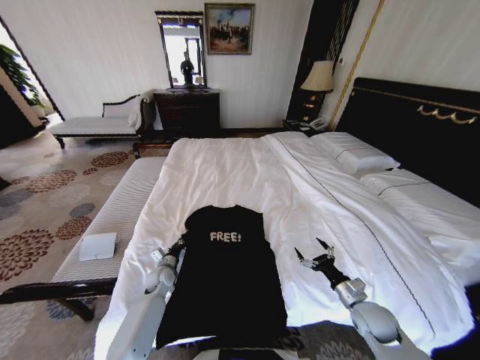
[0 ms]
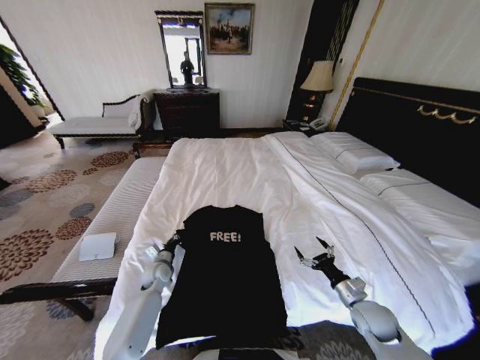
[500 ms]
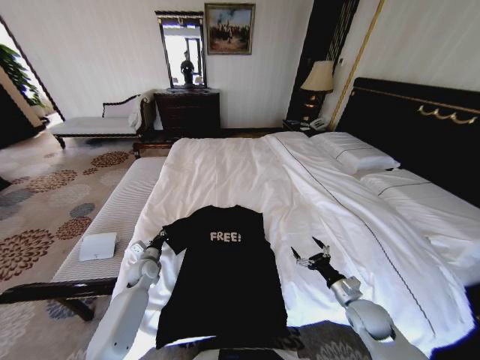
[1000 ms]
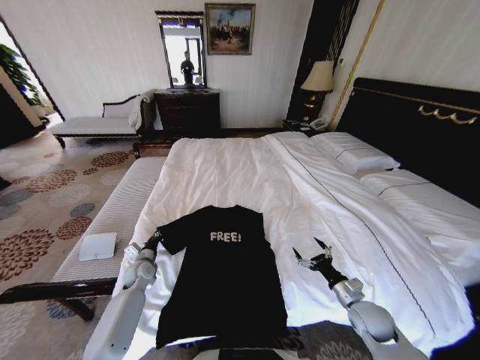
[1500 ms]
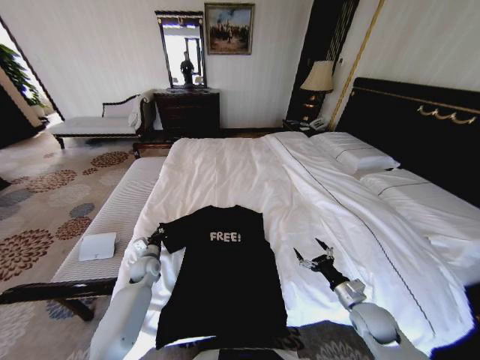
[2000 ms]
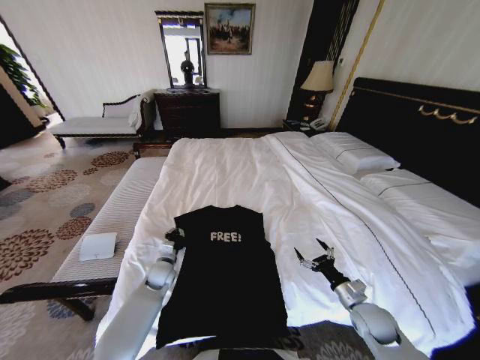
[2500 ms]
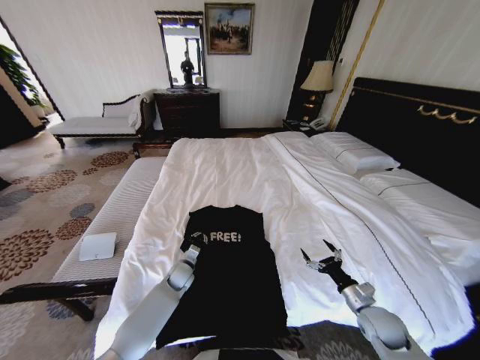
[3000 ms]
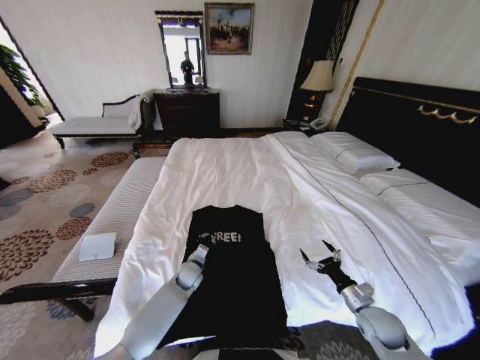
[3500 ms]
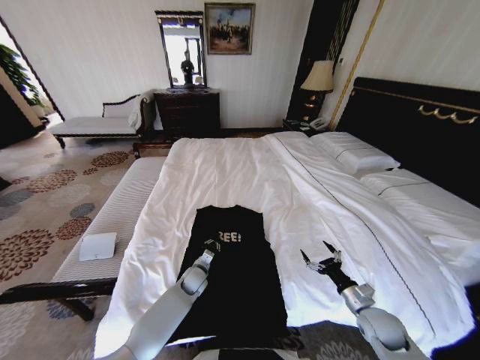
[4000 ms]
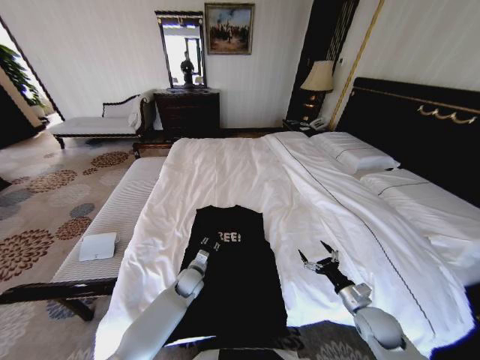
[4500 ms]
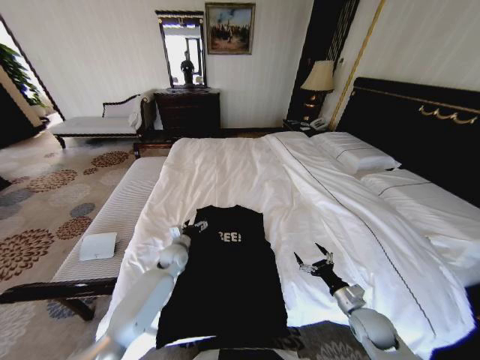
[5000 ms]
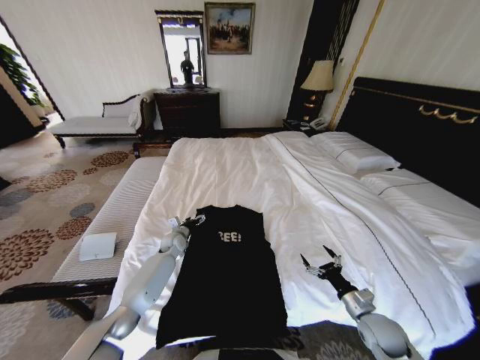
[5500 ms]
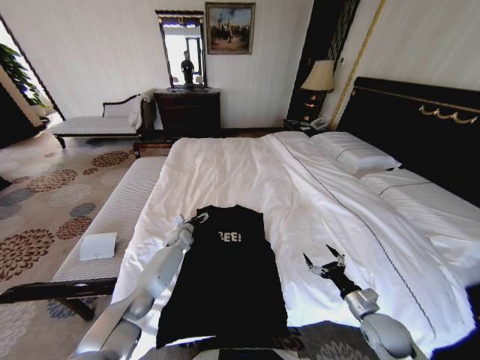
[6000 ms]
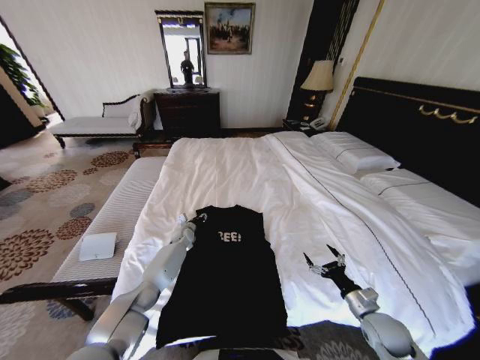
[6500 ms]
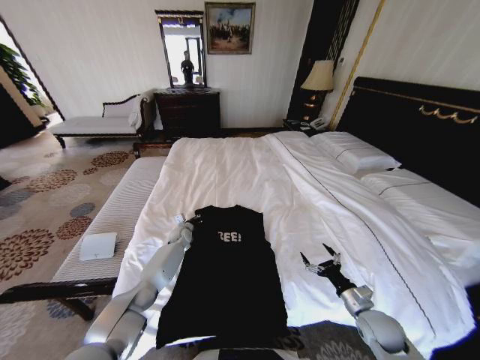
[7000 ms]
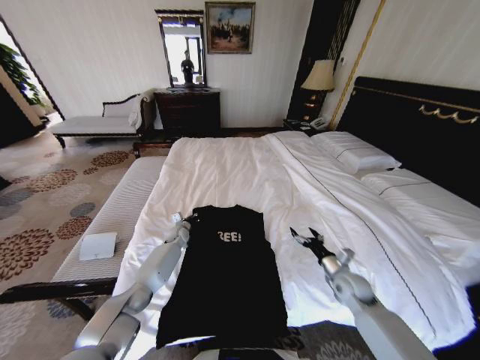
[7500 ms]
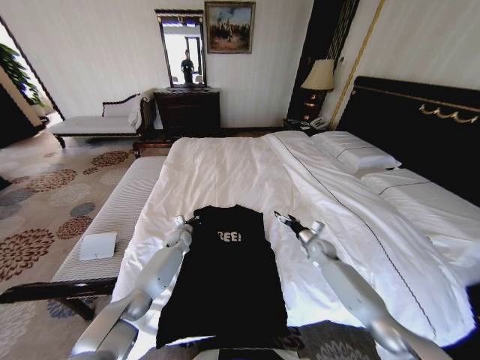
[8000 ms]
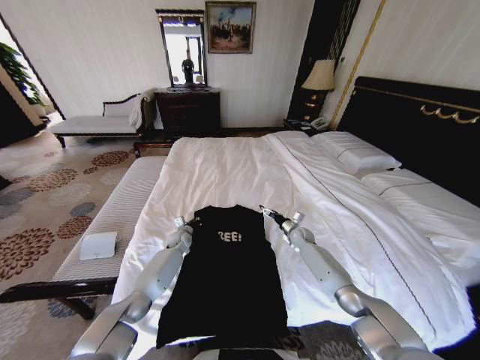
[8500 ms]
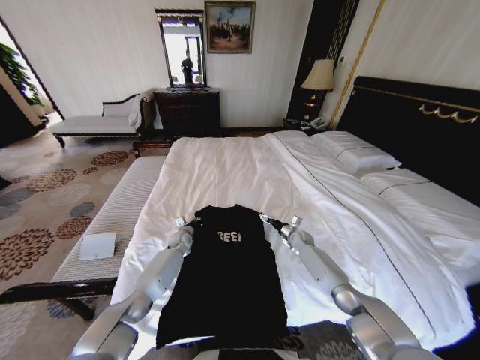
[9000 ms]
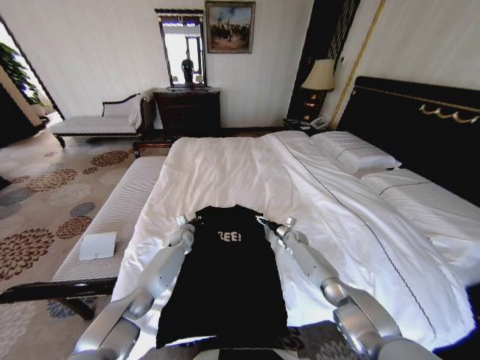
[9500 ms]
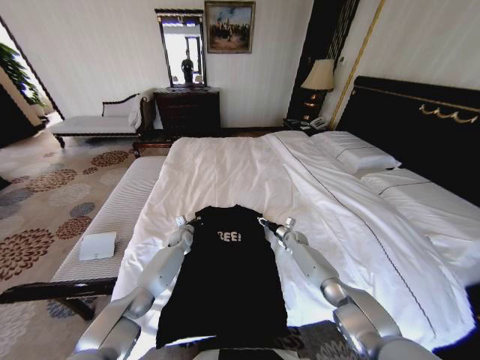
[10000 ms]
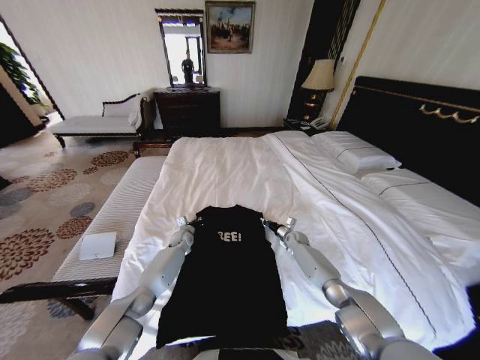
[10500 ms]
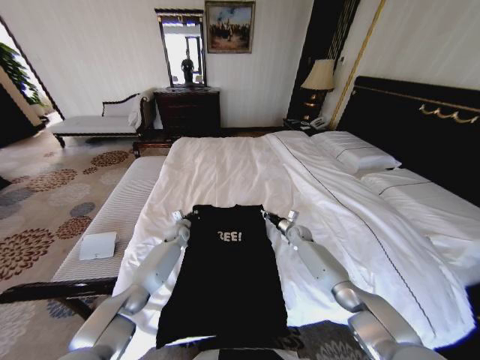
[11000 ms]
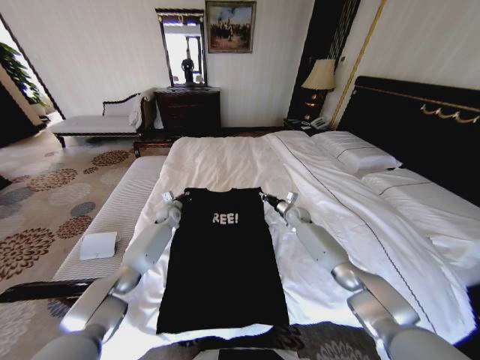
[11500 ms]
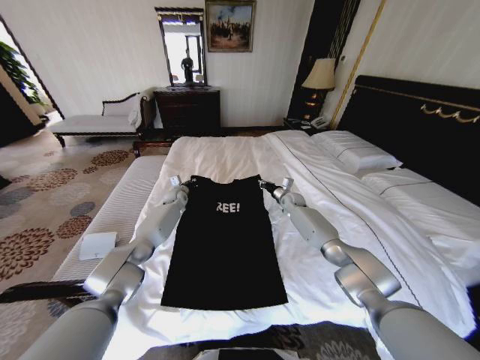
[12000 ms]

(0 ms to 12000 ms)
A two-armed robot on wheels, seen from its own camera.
Task of the whole recording: Fold the clothes on the bed.
0 ms - 2000 ms: The left gripper heads to the left, covering about 5 cm.
2000 ms - 4000 ms: The left gripper is displaced to the right by approximately 15 cm.
4000 ms - 6000 ms: The left gripper travels forward and to the left by roughly 20 cm, and opens.
6000 ms - 8000 ms: The right gripper heads forward, covering some 25 cm. The left gripper closes up.
8000 ms - 10000 ms: The right gripper is displaced forward and downward by roughly 10 cm, and closes its fingers.
10000 ms - 12000 ms: Both grippers travel together upward and forward, about 20 cm. The right gripper closes.

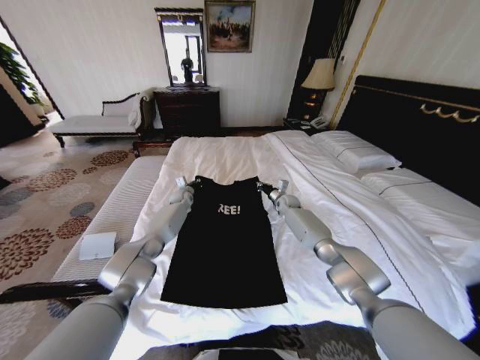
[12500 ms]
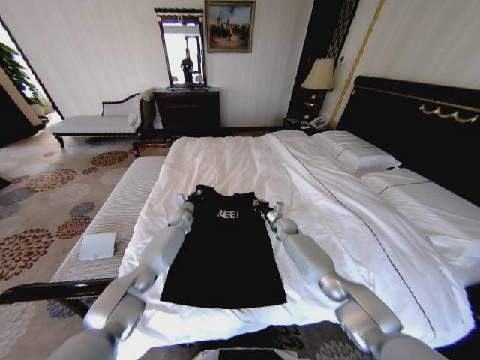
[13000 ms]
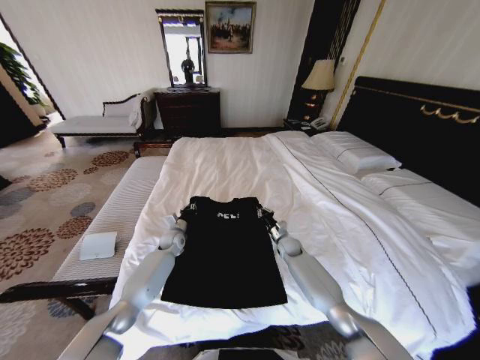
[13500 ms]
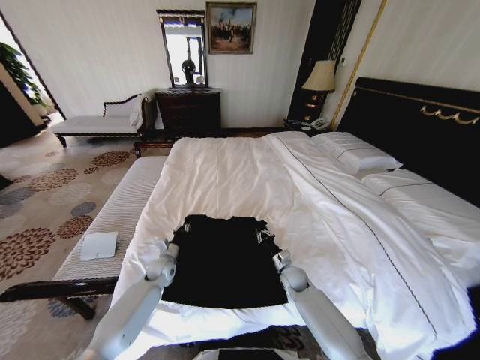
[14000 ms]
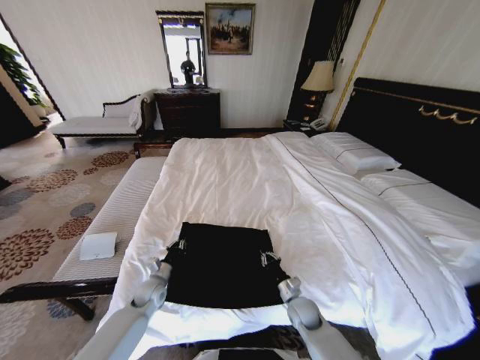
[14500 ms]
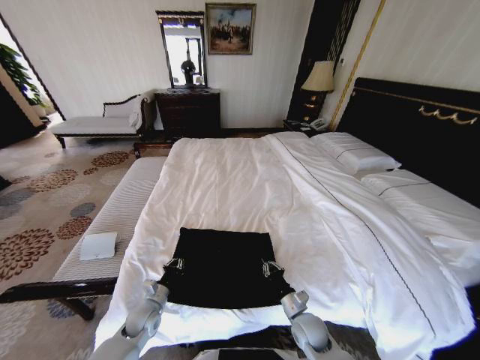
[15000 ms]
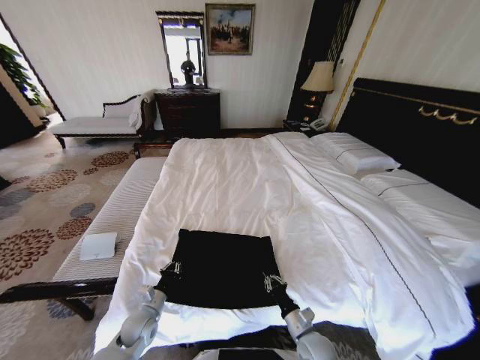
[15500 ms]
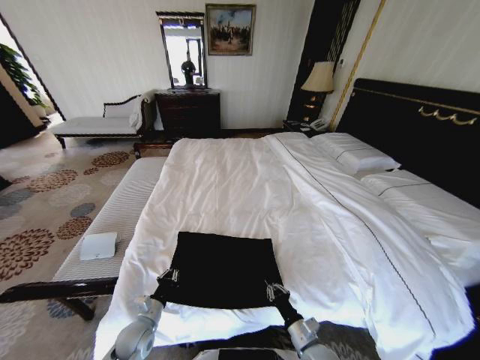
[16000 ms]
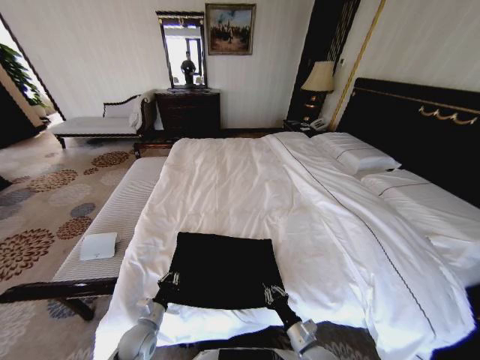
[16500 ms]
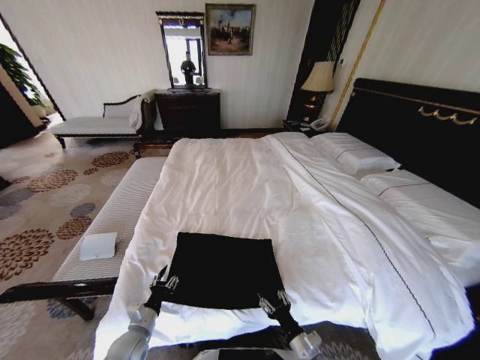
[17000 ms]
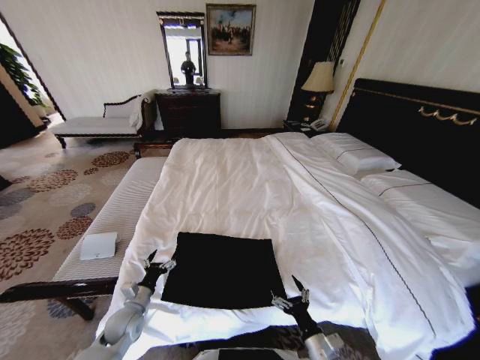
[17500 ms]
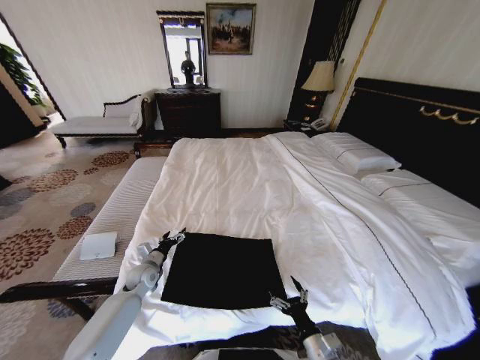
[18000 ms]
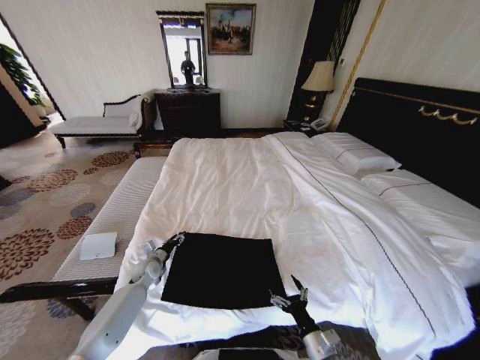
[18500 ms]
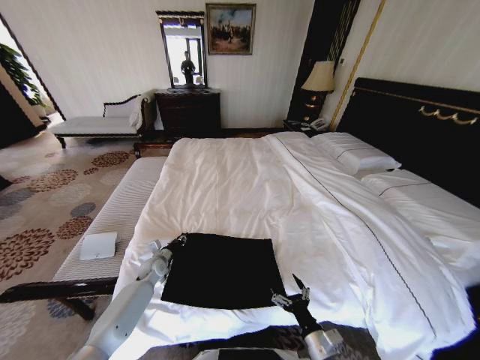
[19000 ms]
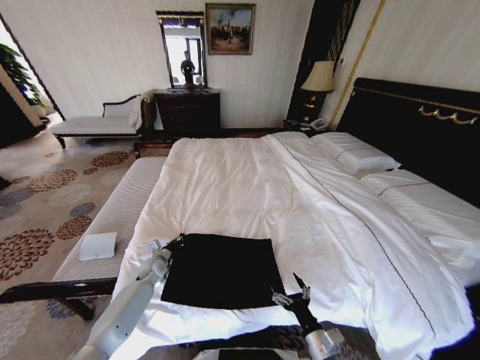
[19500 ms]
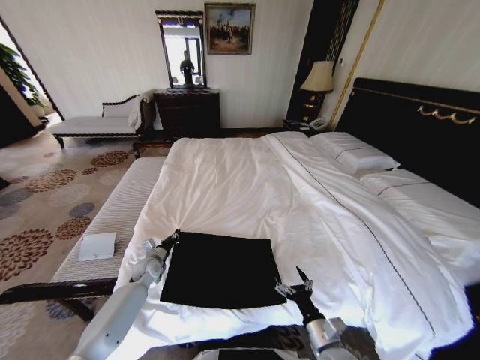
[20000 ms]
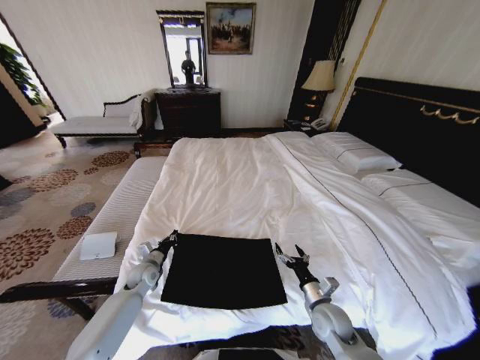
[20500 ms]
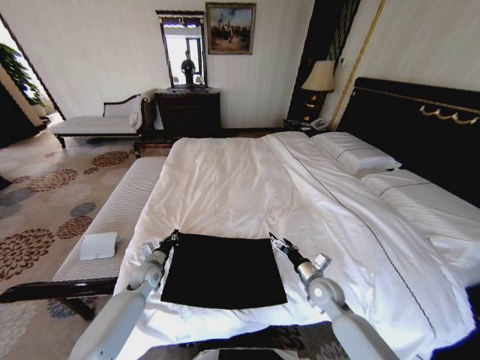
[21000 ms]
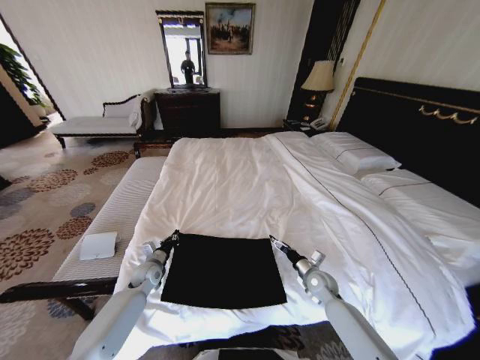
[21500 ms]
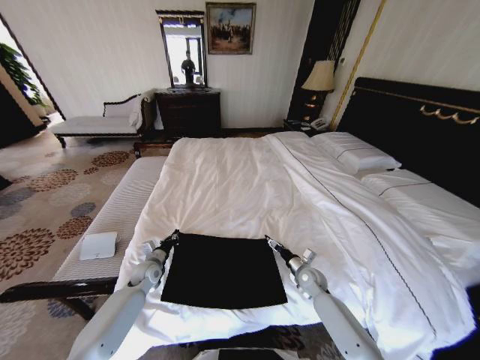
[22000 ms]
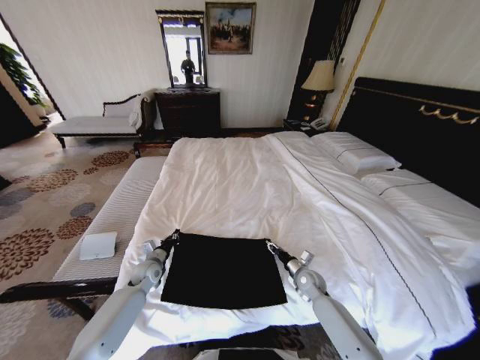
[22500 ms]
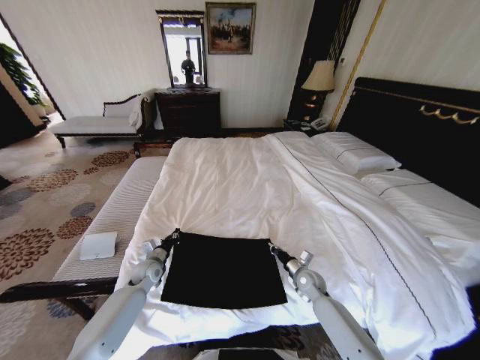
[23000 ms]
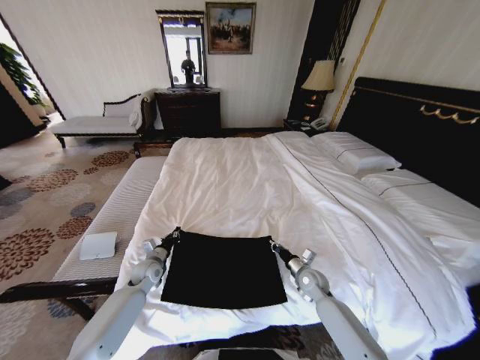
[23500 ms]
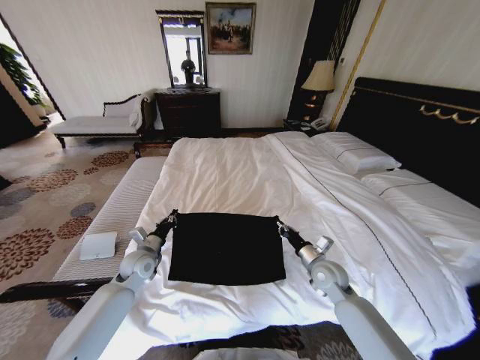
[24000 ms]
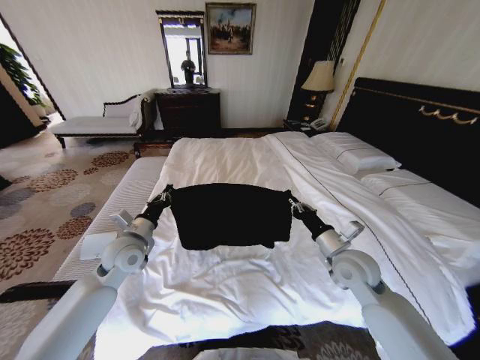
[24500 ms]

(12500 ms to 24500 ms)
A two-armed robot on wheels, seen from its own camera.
Task of the whole recording: Fold the clothes on the bed.
12500 ms - 14500 ms: Both grippers travel together backward, some 35 cm.
14500 ms - 16500 ms: Both grippers travel together backward, some 15 cm.
16500 ms - 18500 ms: The left gripper is displaced forward by some 20 cm, and opens its fingers. The right gripper shifts by roughly 5 cm, and opens.
18500 ms - 20500 ms: The left gripper closes up, while the right gripper goes about 10 cm forward.
20500 ms - 22500 ms: The right gripper shifts roughly 15 cm forward and downward, and closes.
22500 ms - 24500 ms: Both grippers travel together upward, about 20 cm. The right gripper closes up.

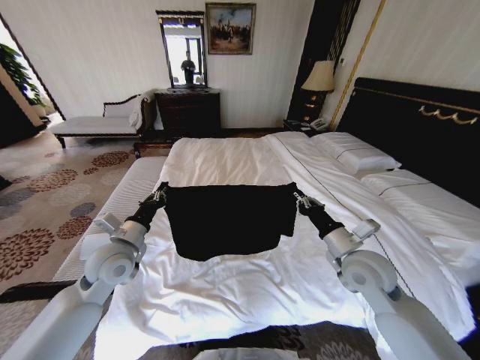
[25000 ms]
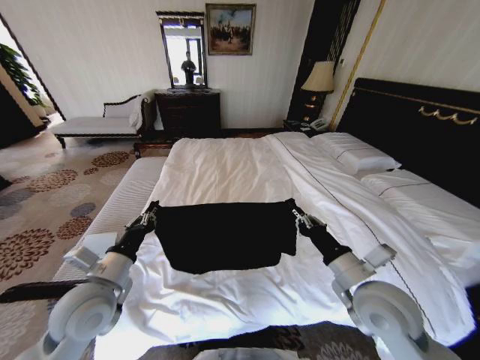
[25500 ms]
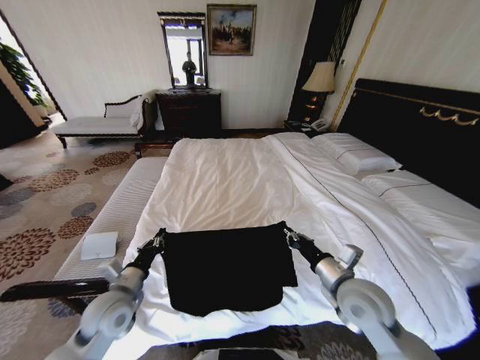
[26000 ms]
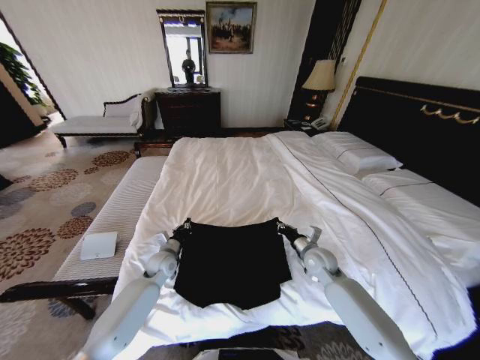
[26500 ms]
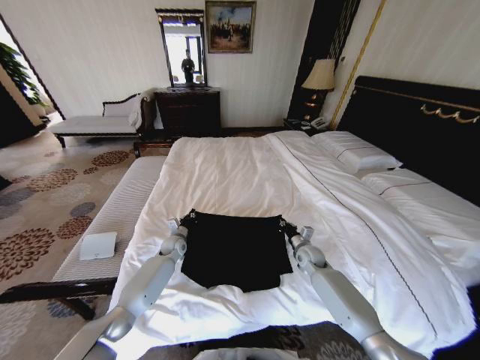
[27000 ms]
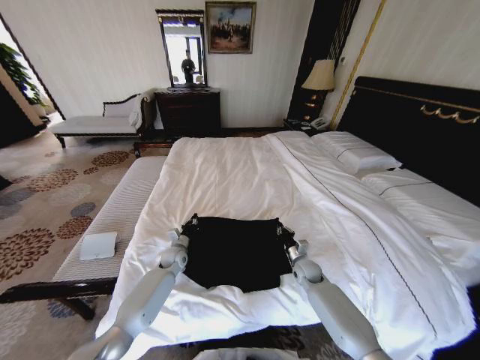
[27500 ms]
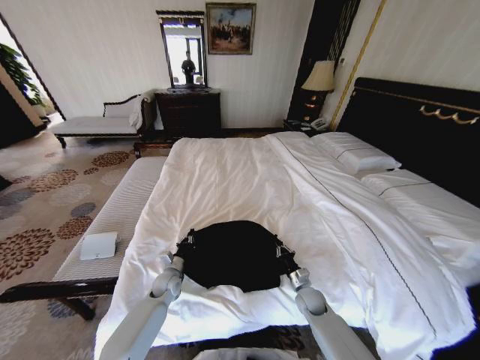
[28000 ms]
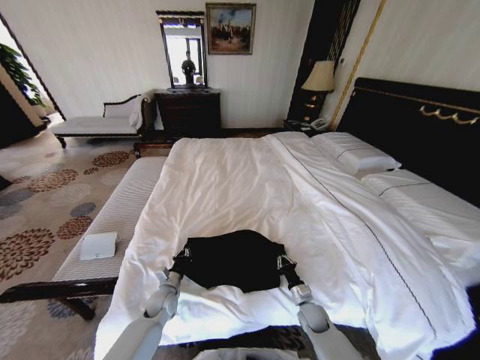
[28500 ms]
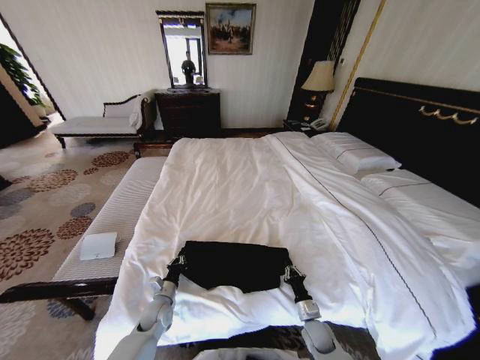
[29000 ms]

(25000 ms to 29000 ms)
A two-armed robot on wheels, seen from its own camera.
Task of the whole recording: Fold the clothes on the bed.
25000 ms - 27000 ms: Both grippers travel together downward and forward, some 25 cm.
27000 ms - 29000 ms: The right gripper travels backward and downward by about 25 cm. Meanwhile the left gripper shifts approximately 20 cm backward.
